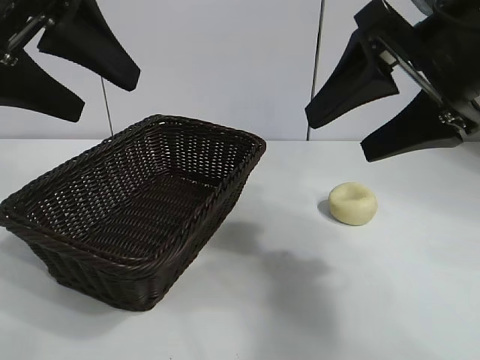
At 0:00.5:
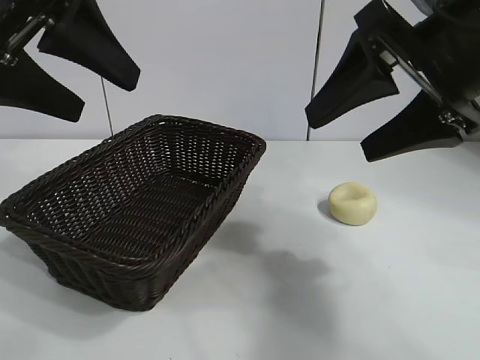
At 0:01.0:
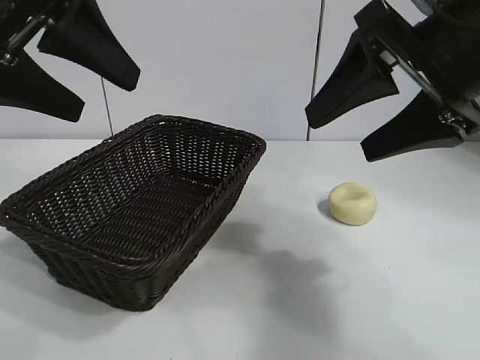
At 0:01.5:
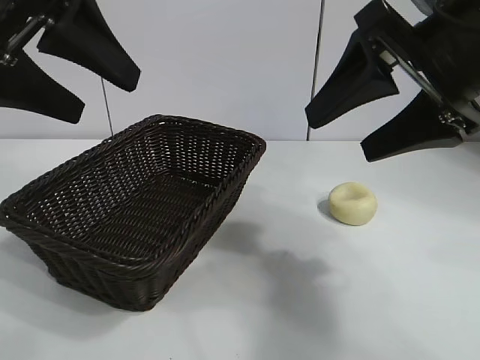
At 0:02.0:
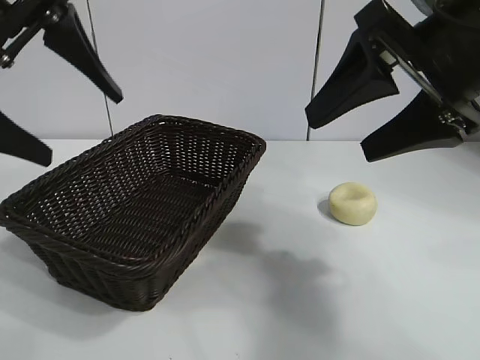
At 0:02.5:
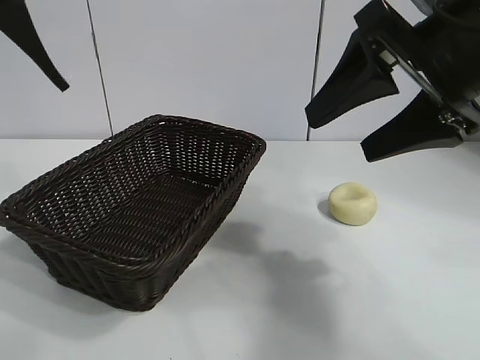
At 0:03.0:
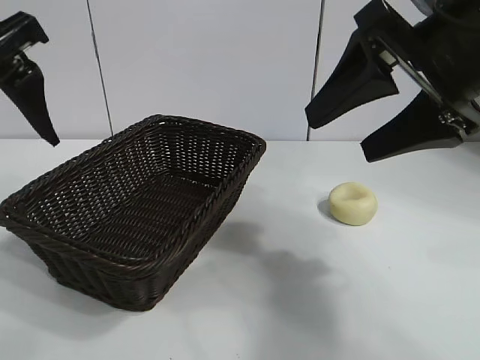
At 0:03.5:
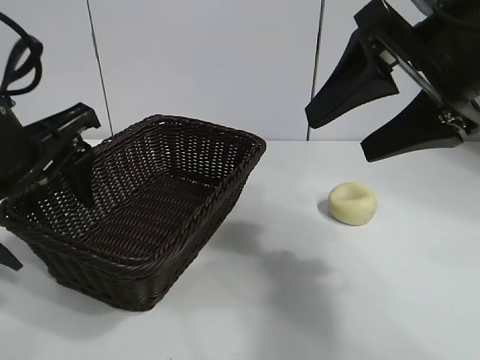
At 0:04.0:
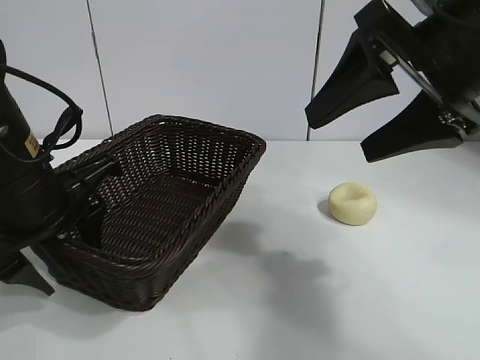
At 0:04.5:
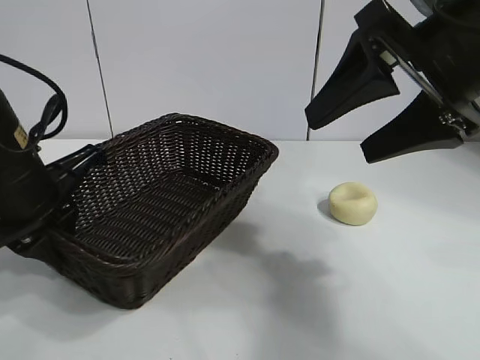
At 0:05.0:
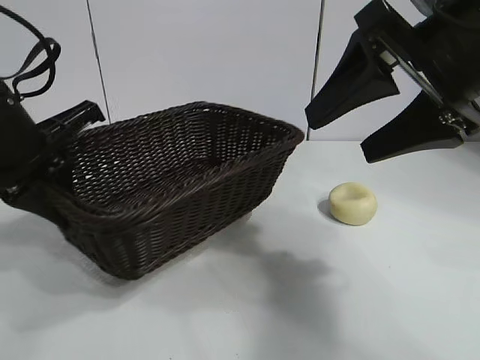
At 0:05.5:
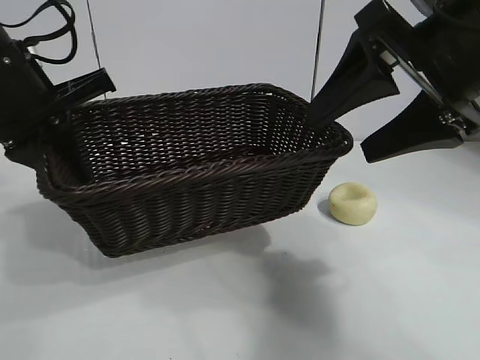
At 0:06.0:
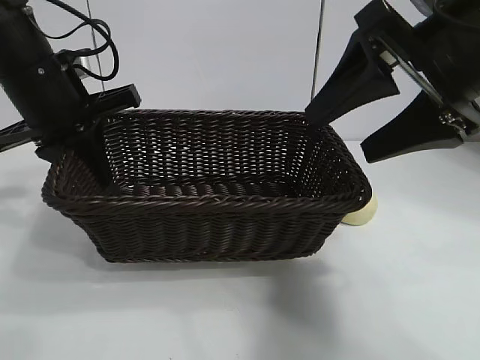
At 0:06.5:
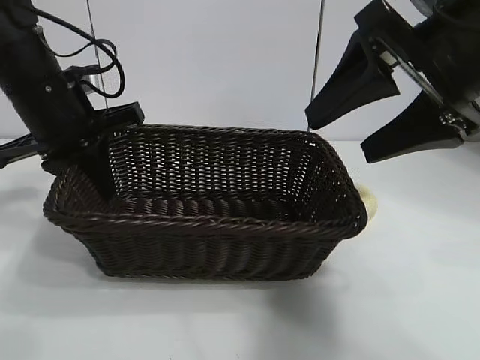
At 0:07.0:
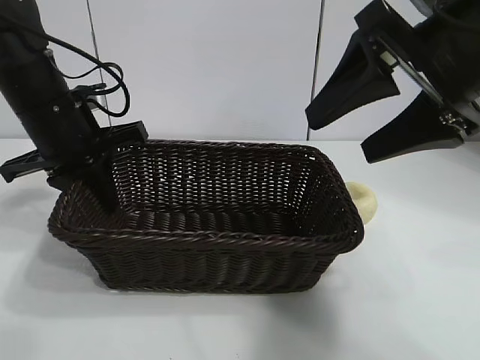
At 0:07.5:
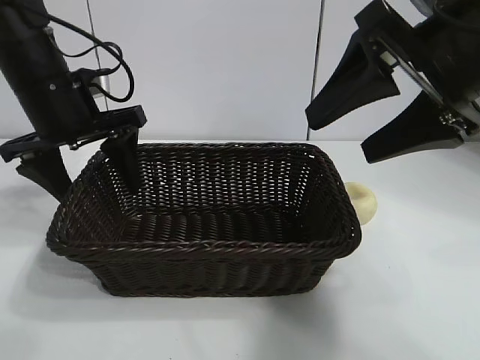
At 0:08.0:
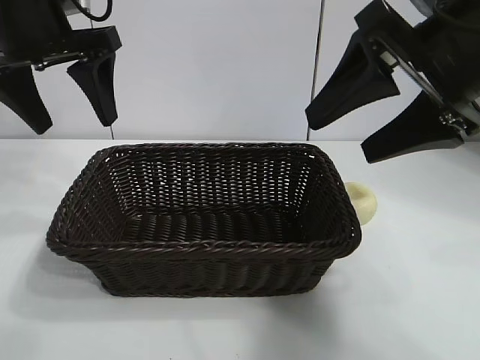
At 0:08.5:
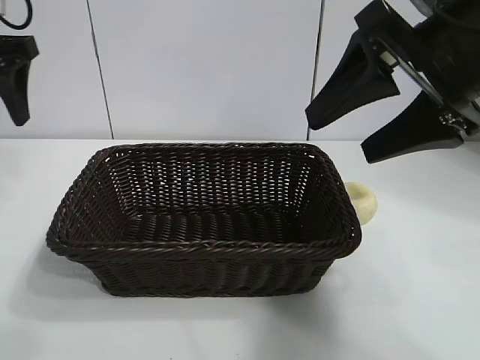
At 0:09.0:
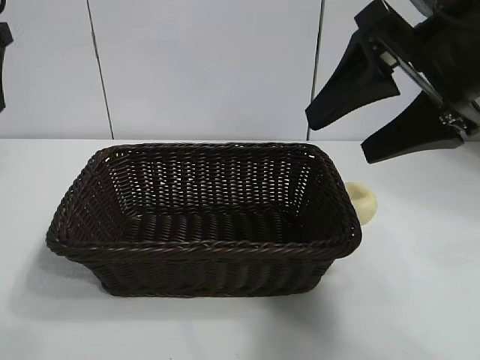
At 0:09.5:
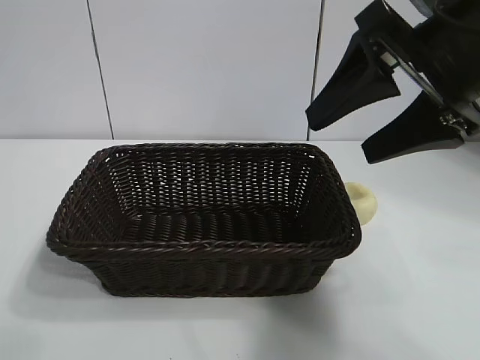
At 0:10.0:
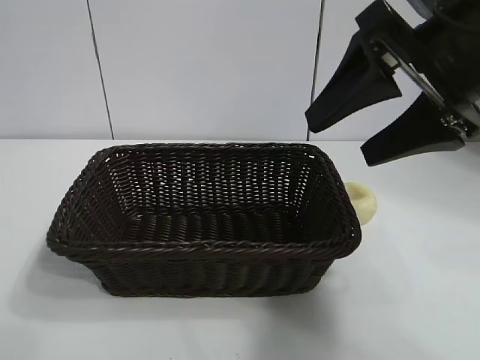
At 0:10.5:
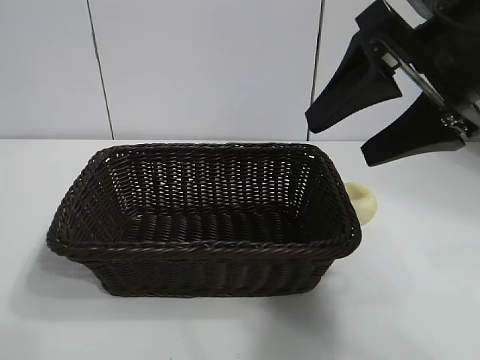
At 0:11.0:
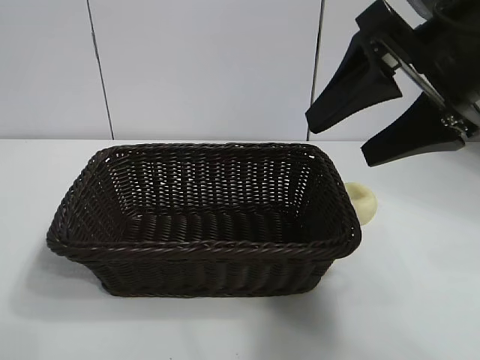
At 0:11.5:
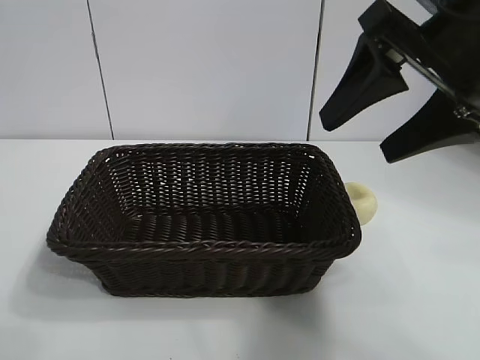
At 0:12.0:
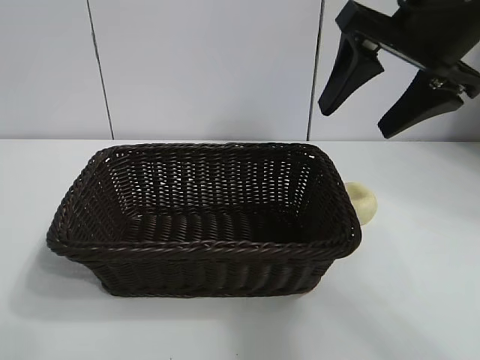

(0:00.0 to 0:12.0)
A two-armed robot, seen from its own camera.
Task of the whole recording: pick up the egg yolk pastry and put it into the basket.
Step, 0:02.0 - 0:04.0: Grasp the basket with left gripper.
Step, 0:04.5 - 0:07.5: Place the basket in the center of view with left gripper.

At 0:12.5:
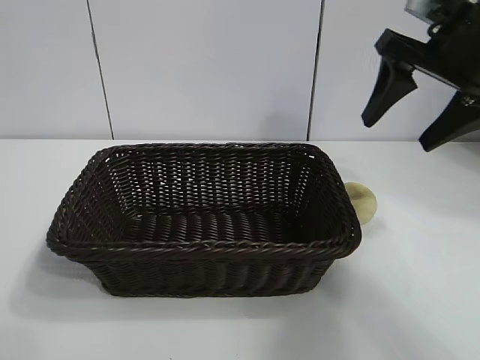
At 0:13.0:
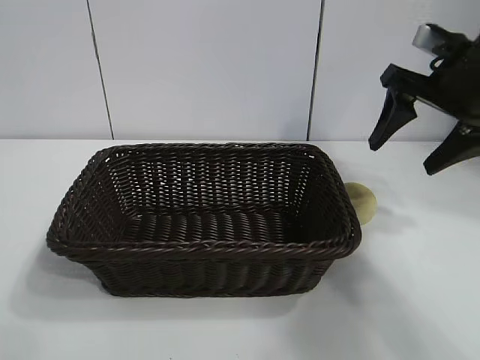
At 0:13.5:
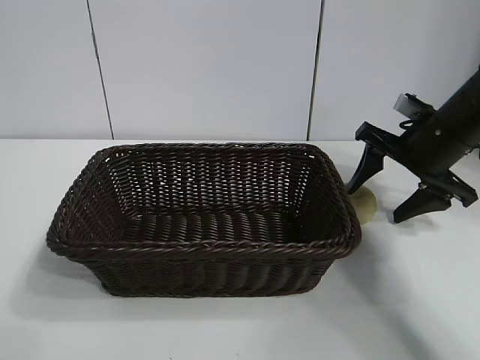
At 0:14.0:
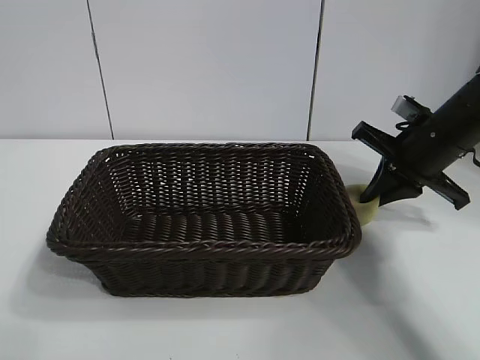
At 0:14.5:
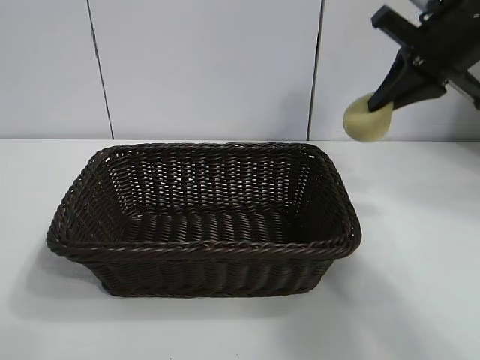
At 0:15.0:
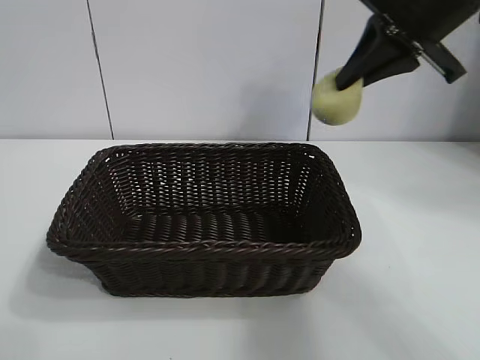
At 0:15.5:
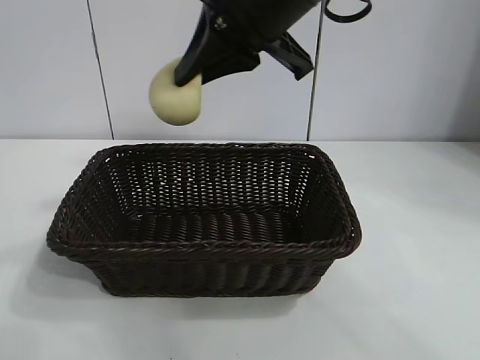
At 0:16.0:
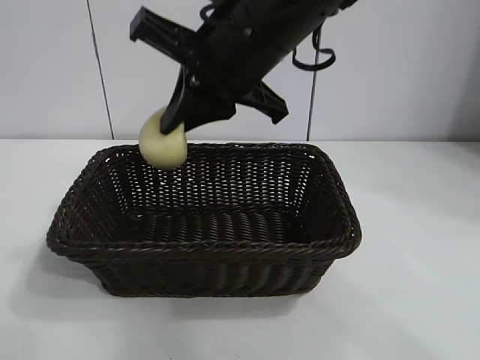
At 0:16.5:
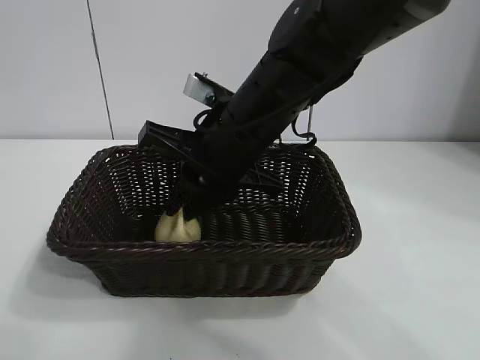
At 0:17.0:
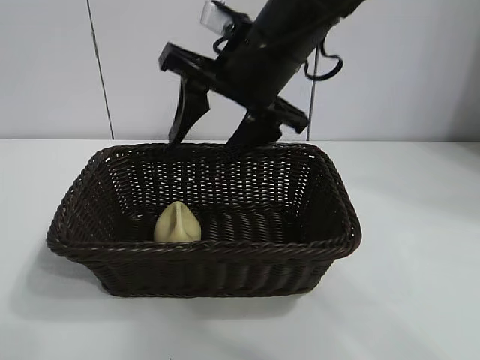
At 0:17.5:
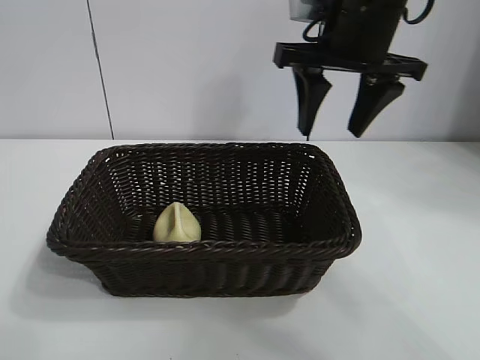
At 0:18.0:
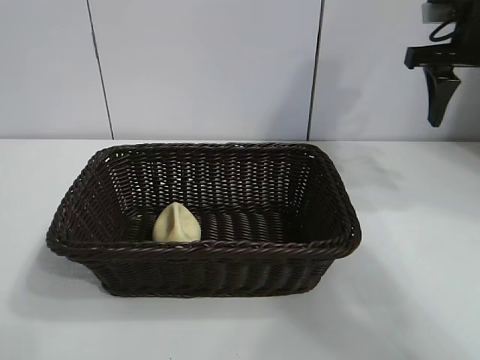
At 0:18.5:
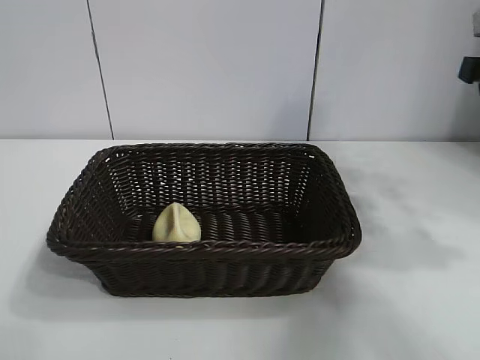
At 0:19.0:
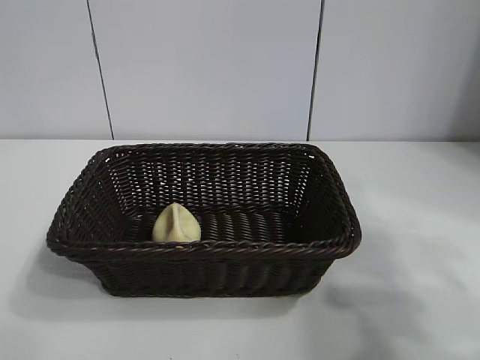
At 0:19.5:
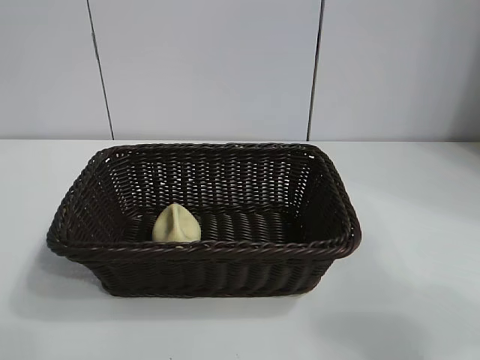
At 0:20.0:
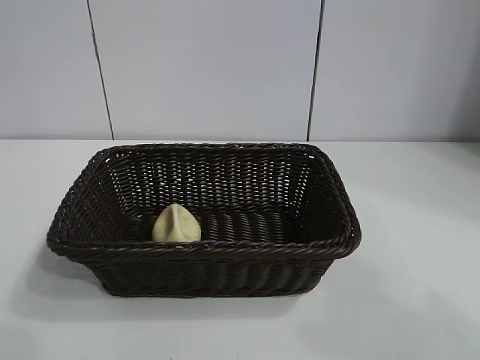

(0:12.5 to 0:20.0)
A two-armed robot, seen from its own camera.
Task of the whole recording: pick up the egg yolk pastry and put it into the basket.
Step, 0:14.5 - 0:16.5: Place the egg yolk pastry in the basket with right gripper.

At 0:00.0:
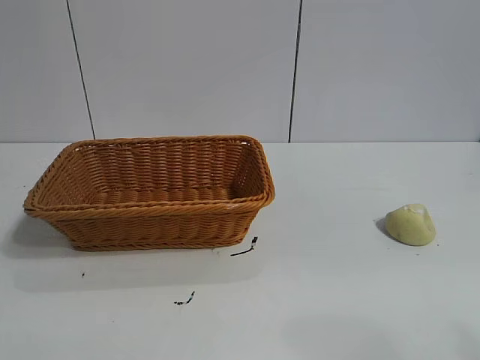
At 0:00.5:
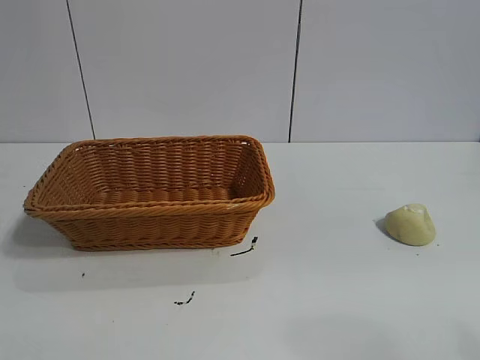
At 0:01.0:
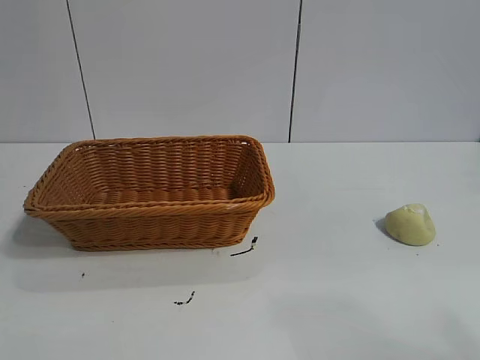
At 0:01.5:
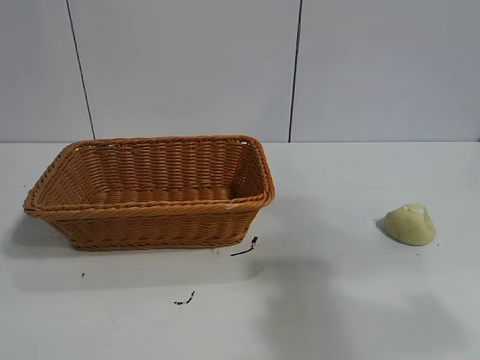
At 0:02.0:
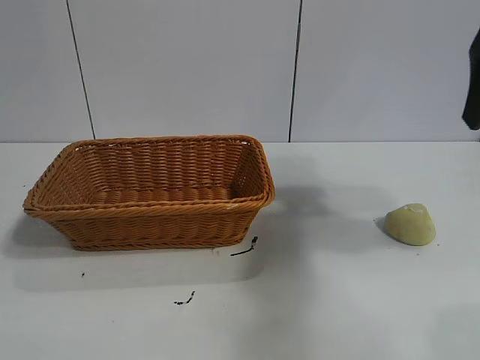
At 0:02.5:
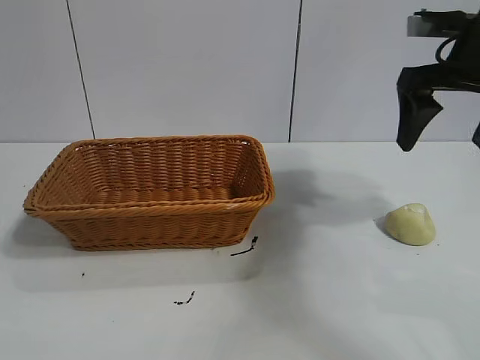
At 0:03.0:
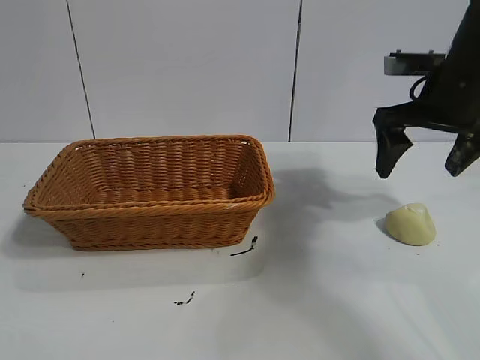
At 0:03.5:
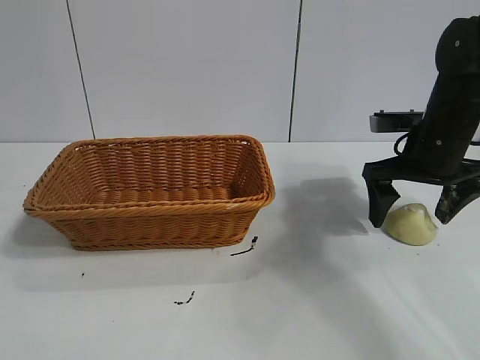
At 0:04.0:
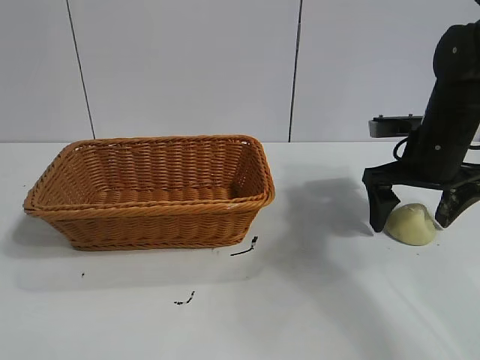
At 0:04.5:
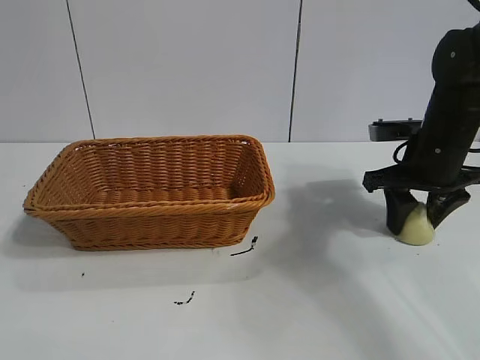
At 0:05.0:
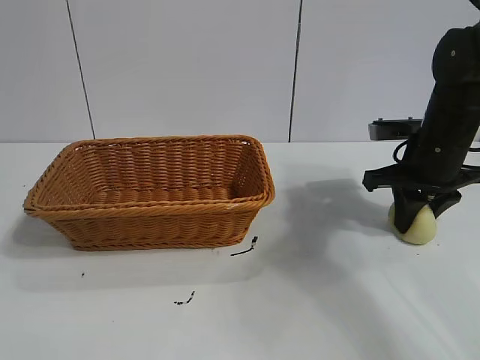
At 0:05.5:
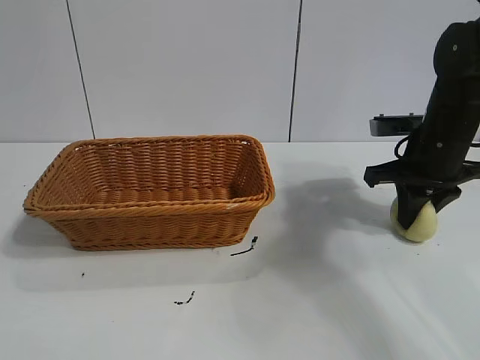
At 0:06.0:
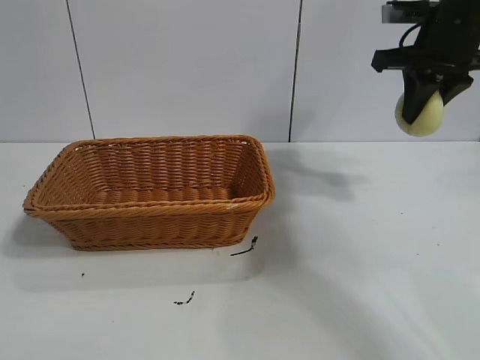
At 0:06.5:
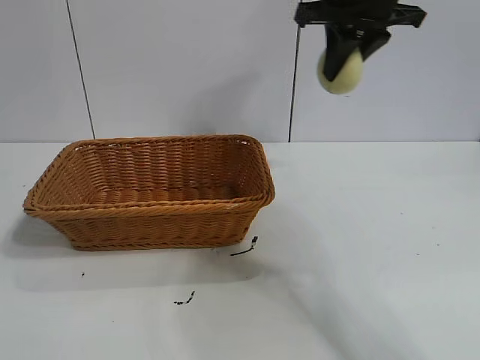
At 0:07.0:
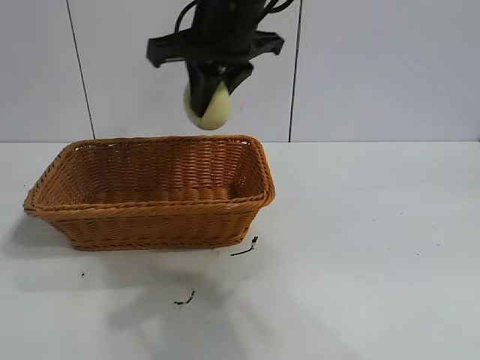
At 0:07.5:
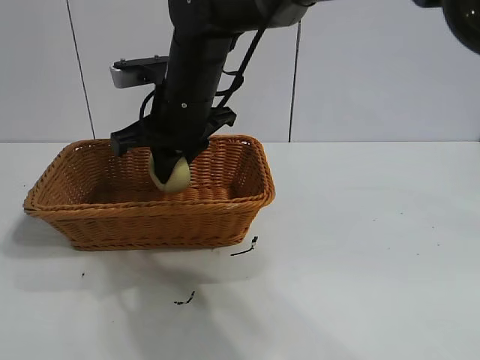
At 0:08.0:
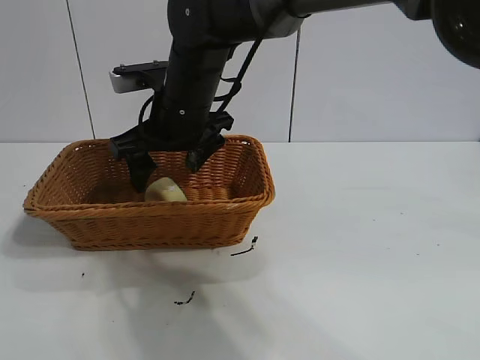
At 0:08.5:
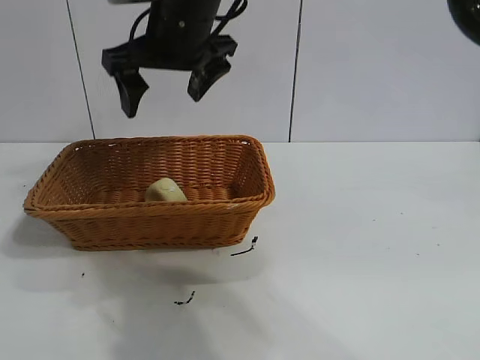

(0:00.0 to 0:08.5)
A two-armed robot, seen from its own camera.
Task of the whole recording: pick up the egg yolk pastry and put it into the basket.
Step, 0:01.0 - 0:07.0: Grasp egg yolk pastry with right gripper.
Step, 0:07.5 - 0:08.0: Place the egg yolk pastry in the basket with right gripper.
